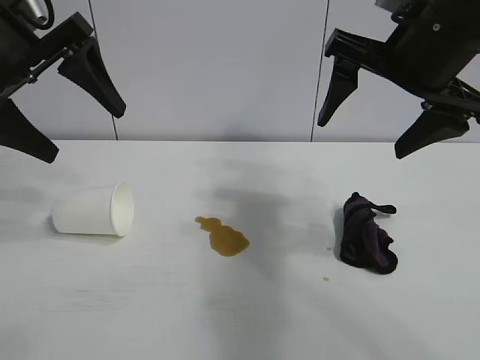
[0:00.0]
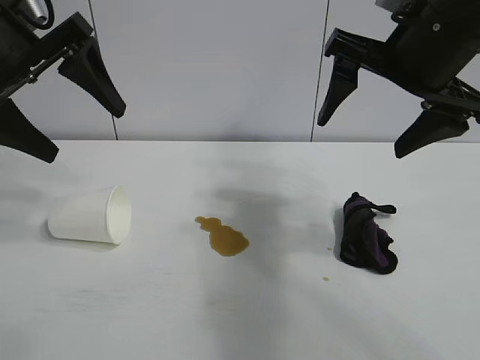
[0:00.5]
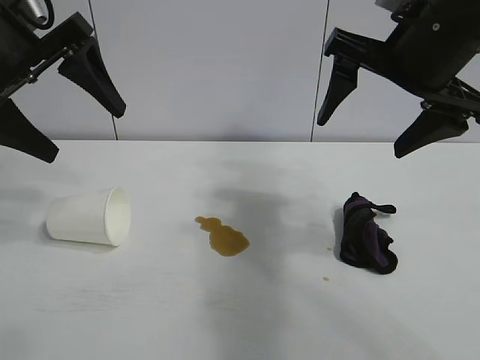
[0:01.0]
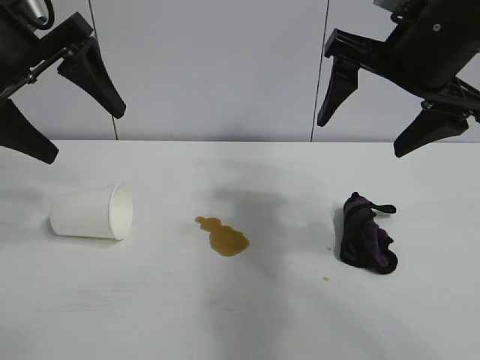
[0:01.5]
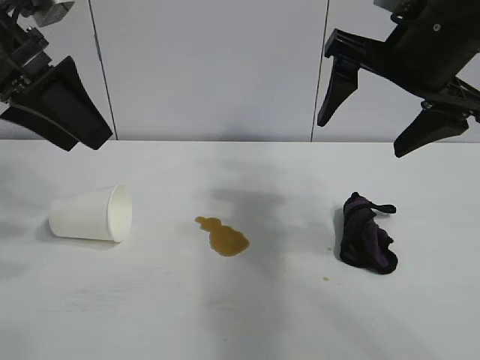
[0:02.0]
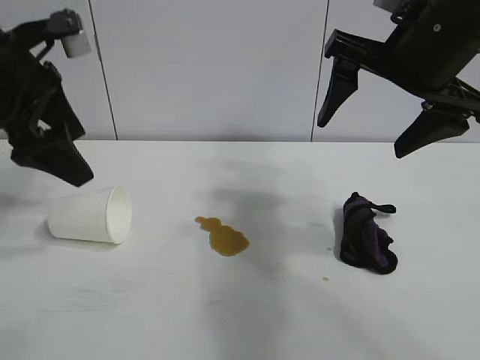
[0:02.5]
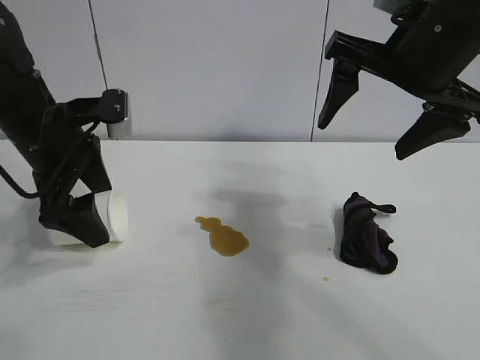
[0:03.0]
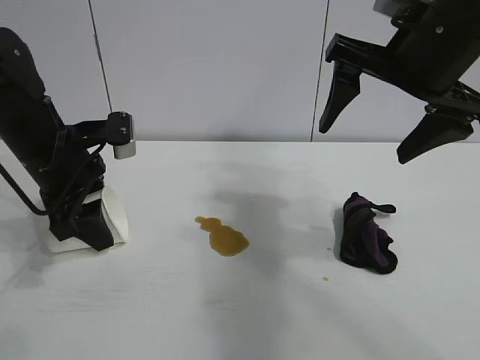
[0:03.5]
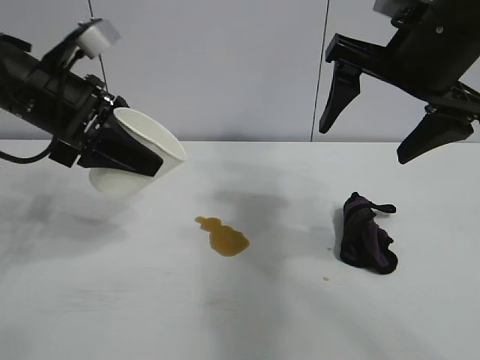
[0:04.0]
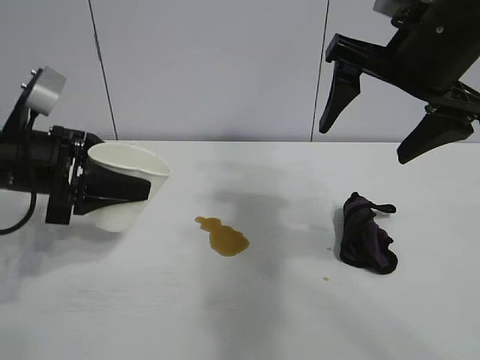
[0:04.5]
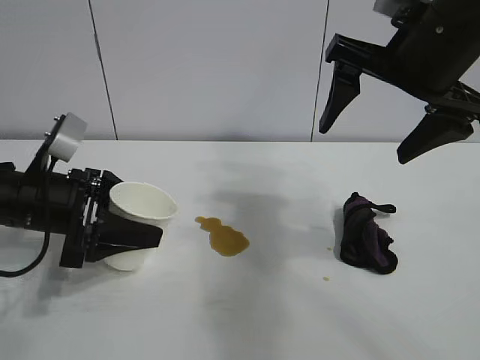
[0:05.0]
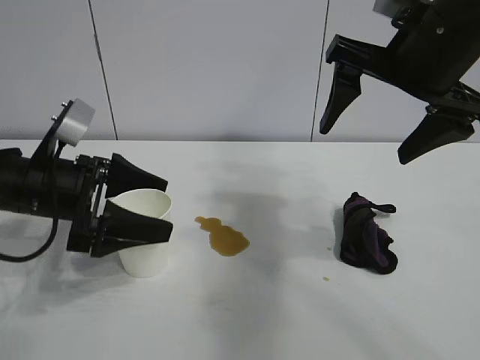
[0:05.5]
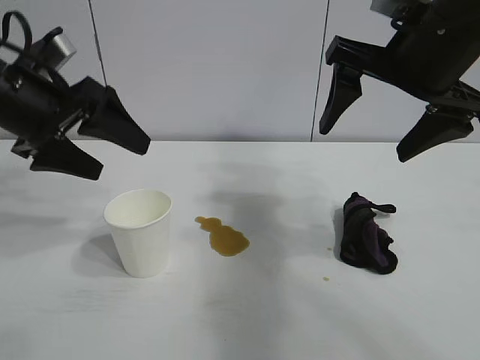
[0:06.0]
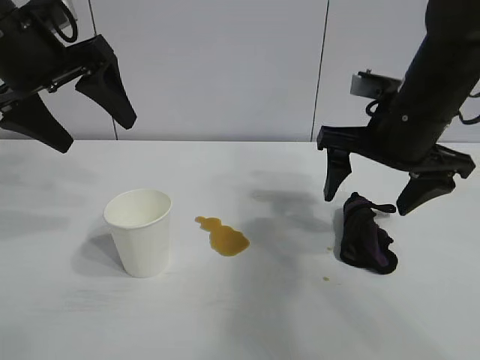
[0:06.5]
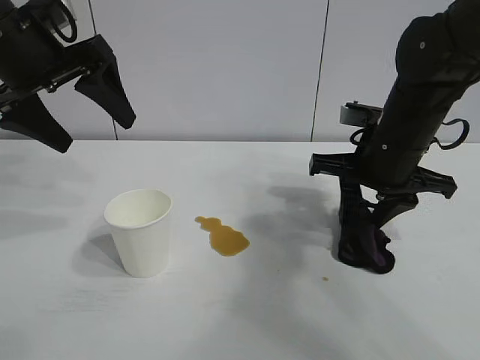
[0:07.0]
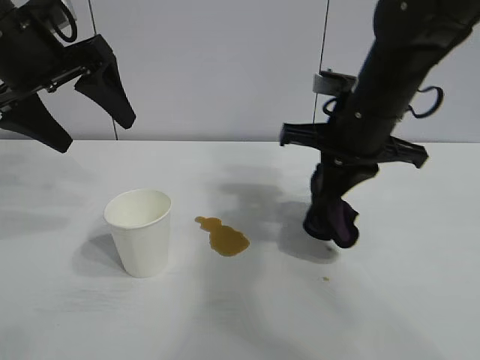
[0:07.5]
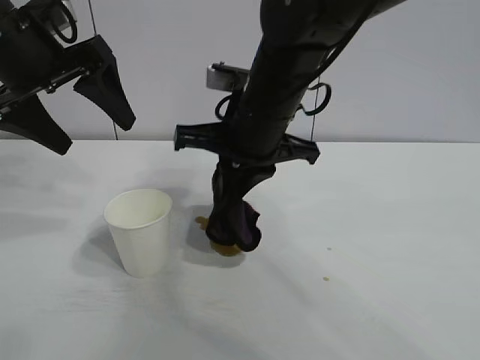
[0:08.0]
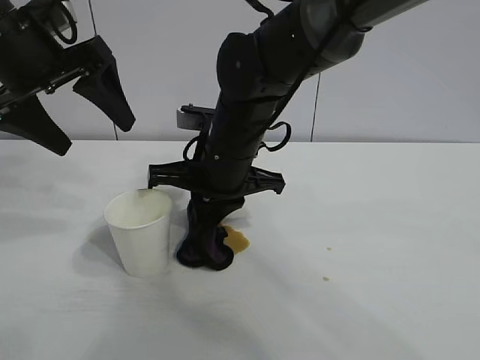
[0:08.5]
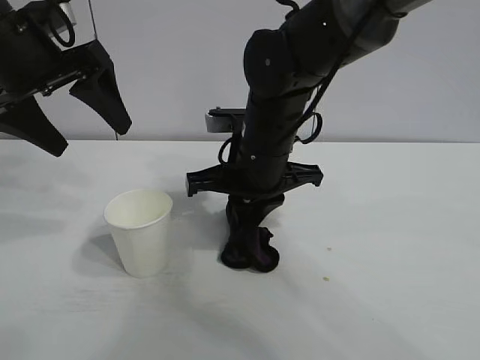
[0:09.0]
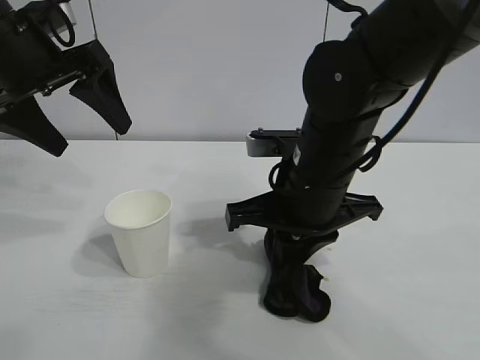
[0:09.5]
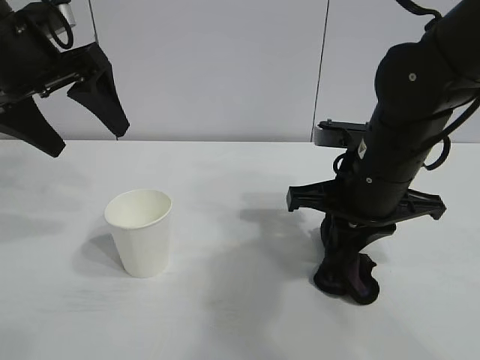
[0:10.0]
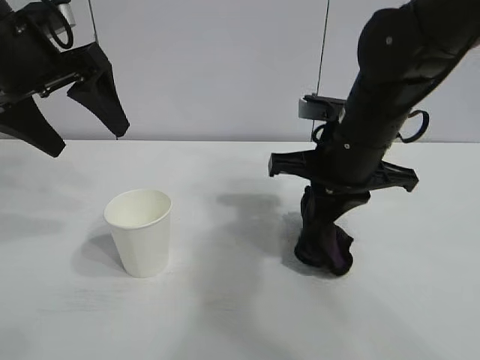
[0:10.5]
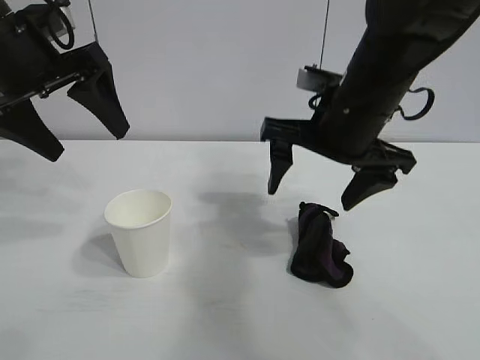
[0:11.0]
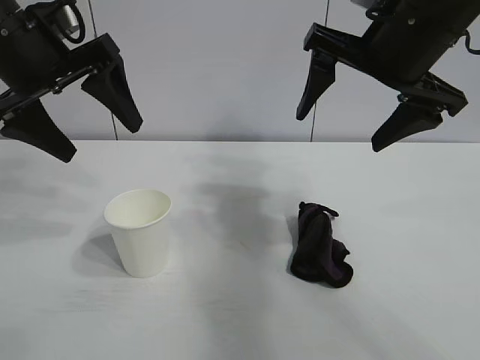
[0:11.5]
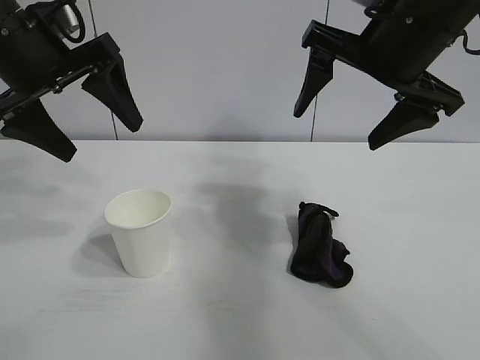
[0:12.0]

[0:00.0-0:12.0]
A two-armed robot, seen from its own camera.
Task of the whole recording: the left gripper pick up the fallen cup and place it upright, the right gripper grasp the black rag and wipe the stain on the table, the right gripper put the black rag back in its original position.
Step, 0:01.5 to 0:03.0: Grasp the paper cup with left gripper.
Step, 0:04.0 to 0:05.0: Stand the paper cup upright with left gripper.
Step, 0:05.5 to 0:07.0: Grasp the rag with right gripper.
Step, 0:07.5 to 0:10.0: Wipe the stains off the table with the rag with right gripper.
